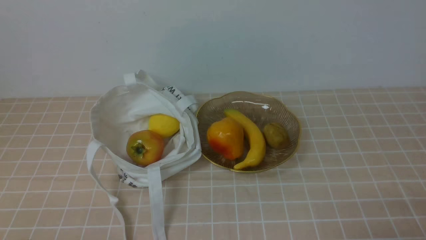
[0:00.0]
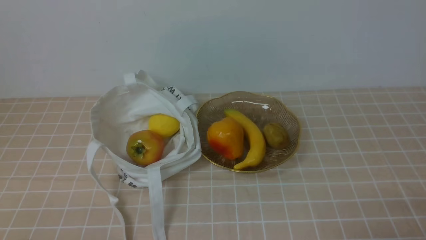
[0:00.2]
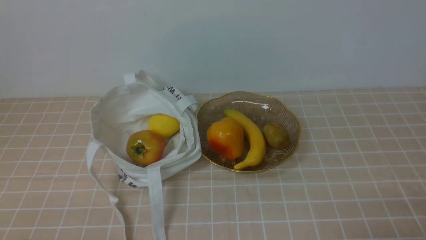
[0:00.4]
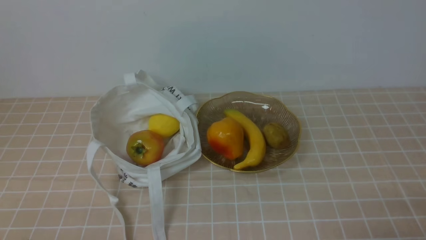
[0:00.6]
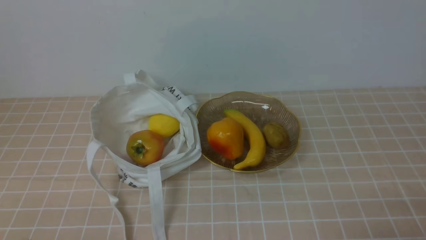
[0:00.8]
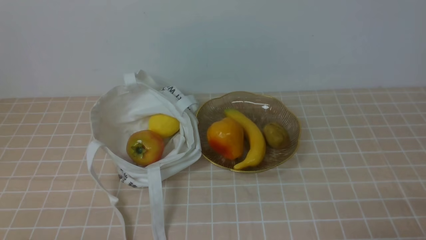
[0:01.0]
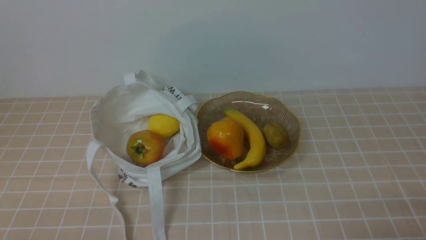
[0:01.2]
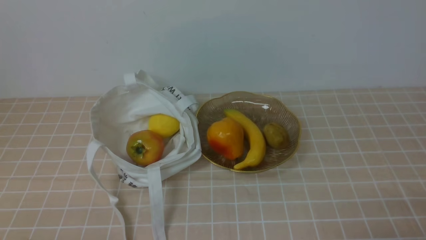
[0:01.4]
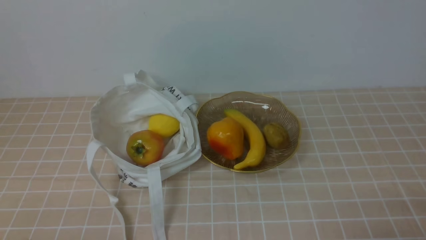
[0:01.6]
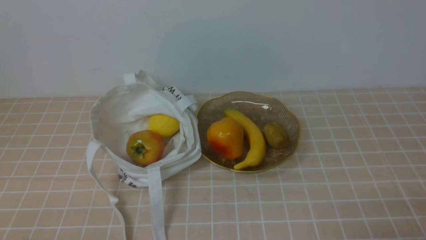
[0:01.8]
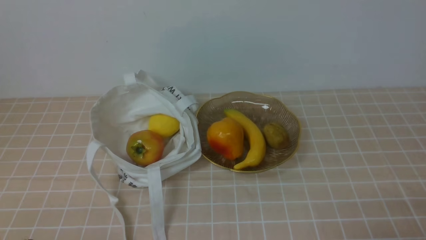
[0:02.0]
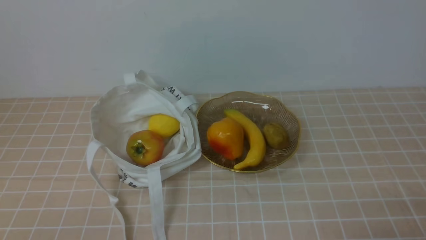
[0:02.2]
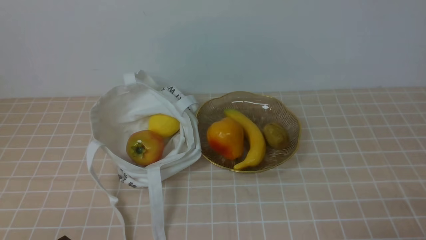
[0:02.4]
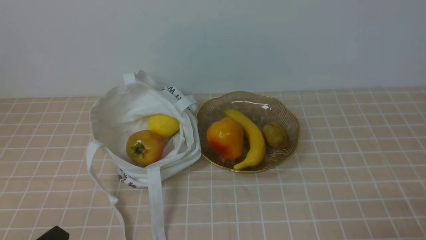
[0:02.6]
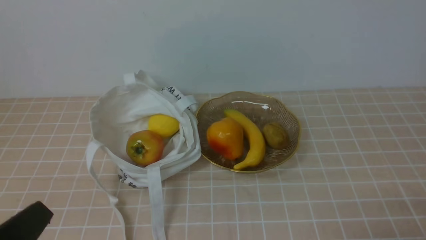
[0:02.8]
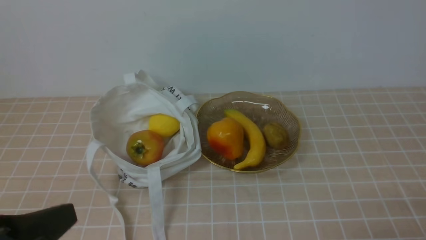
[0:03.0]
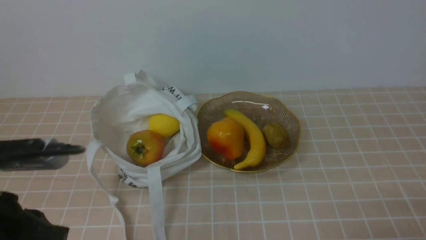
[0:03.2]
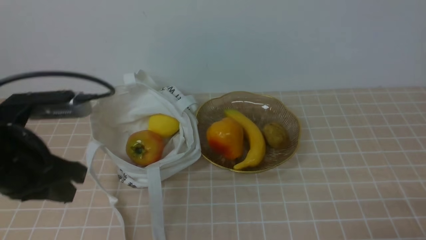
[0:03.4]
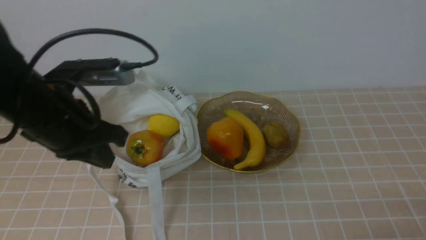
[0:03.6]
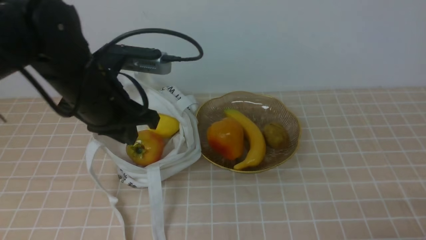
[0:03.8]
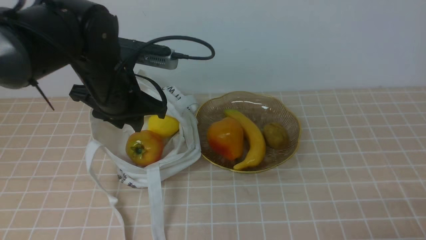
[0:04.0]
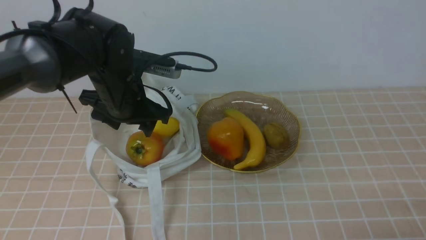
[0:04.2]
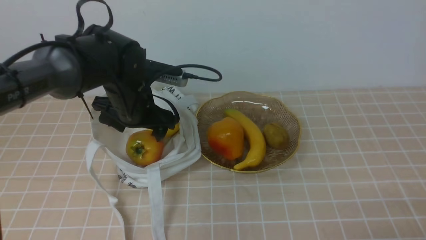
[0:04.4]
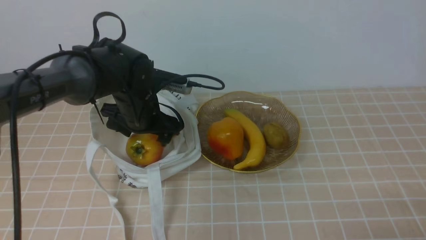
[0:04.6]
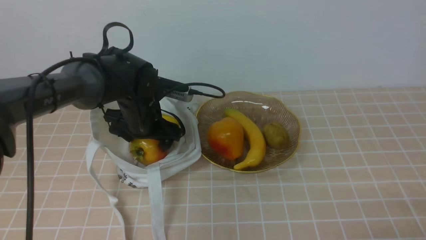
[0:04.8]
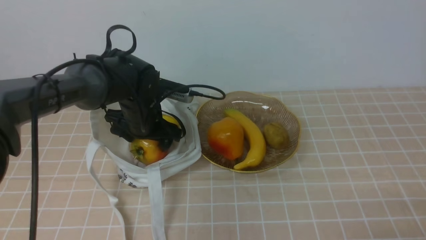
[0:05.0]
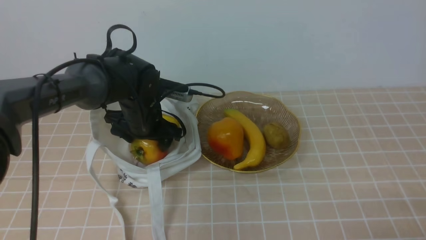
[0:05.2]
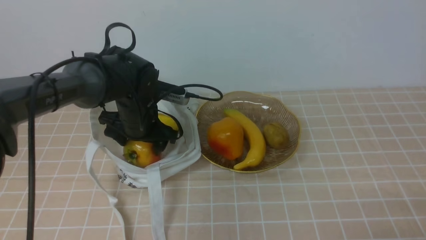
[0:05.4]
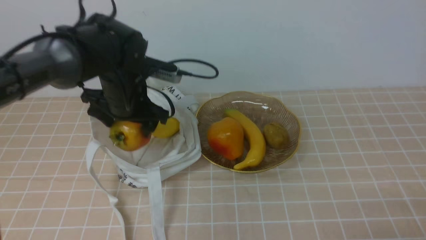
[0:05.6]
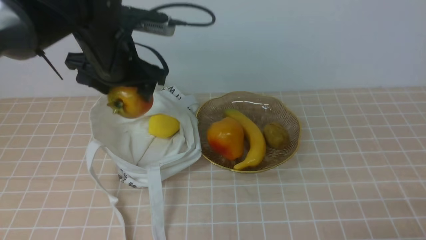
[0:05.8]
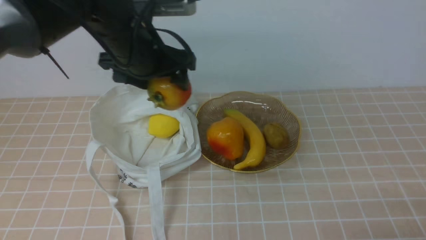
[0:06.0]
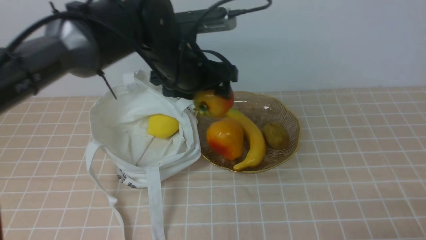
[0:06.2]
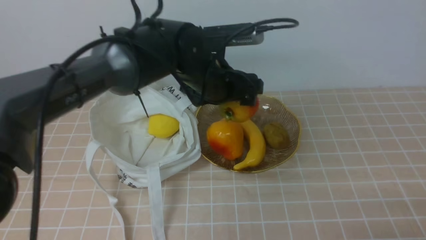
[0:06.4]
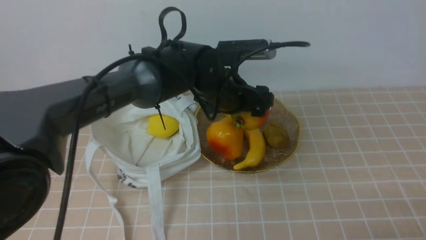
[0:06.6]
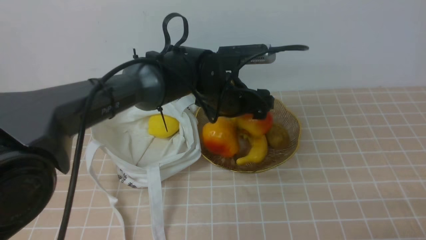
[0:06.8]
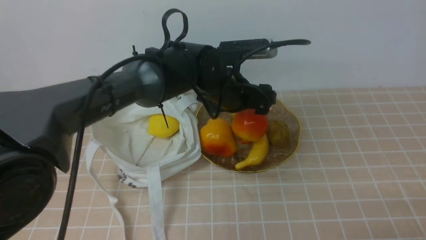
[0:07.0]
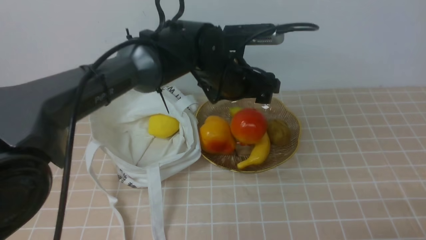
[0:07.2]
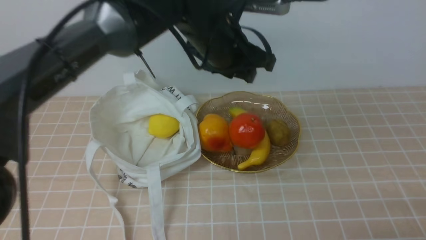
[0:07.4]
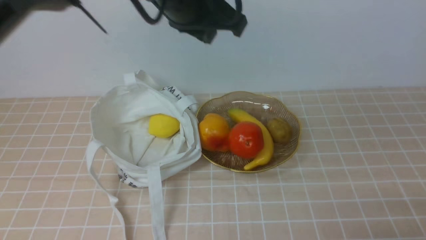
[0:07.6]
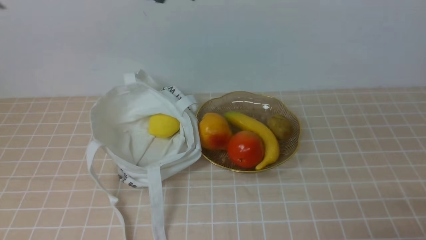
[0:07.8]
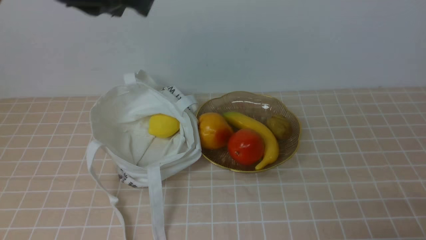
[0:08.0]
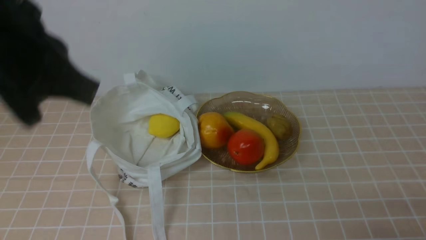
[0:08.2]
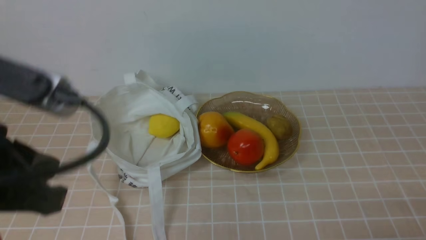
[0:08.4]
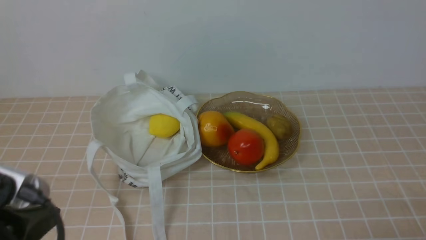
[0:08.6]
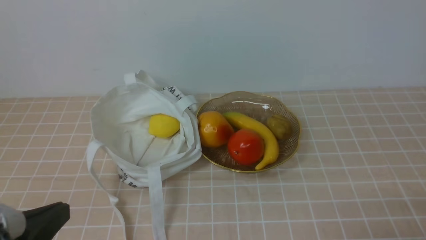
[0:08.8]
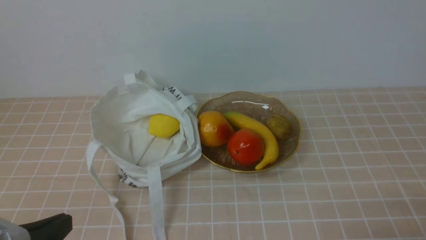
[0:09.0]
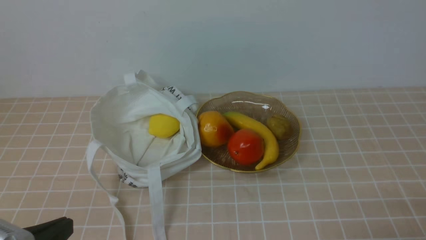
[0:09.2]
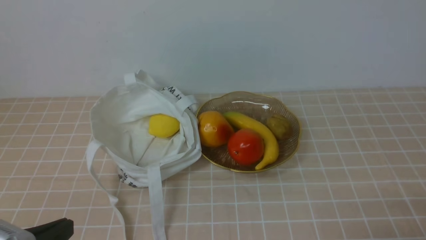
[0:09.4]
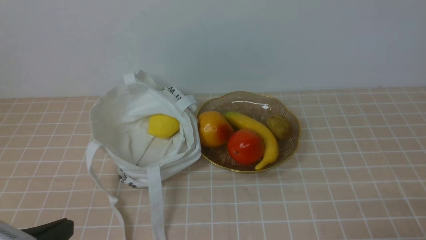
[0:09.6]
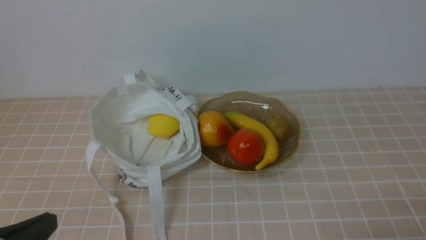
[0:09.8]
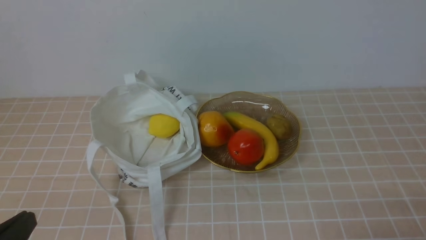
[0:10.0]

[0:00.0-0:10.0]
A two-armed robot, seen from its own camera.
Step, 0:00.0 to 0:05.8: use the left arm to grab a pomegranate from the bag.
Step, 0:06.0 to 0:07.0: use the left arm to put the pomegranate into the empty plate on the right.
0:01.4 to 0:02.8: The left gripper travels upward by approximately 5 cm.
0:02.8 to 0:04.2: The left gripper shifts about 30 cm forward, and opens its fingers.
0:04.2 to 0:05.8: The left gripper moves roughly 10 cm downward and comes back, and opens its fingers.
0:05.8 to 0:07.2: The left gripper is displaced to the right by about 15 cm.
0:07.2 to 0:08.6: The left gripper moves backward and to the left, about 35 cm, and closes.
0:08.6 to 0:10.0: The left gripper travels downward and backward by approximately 10 cm.

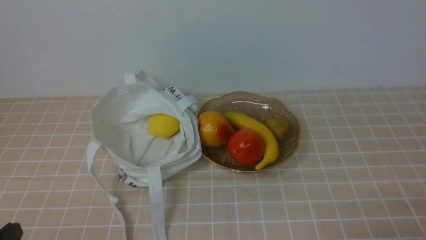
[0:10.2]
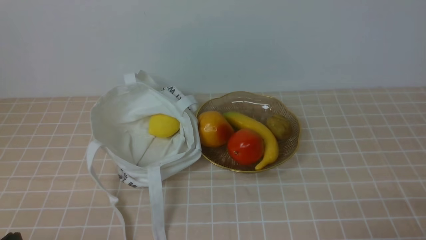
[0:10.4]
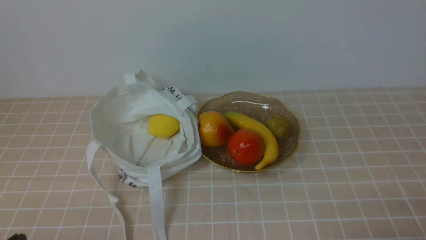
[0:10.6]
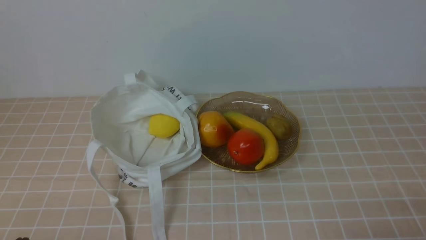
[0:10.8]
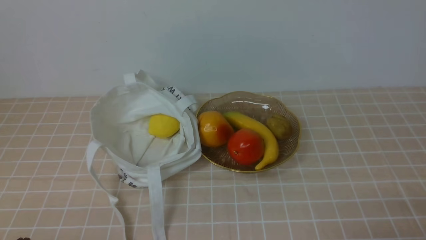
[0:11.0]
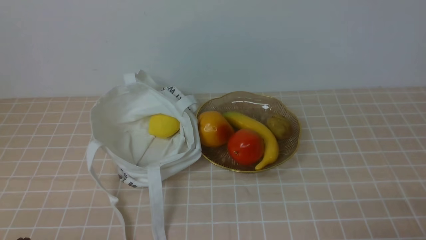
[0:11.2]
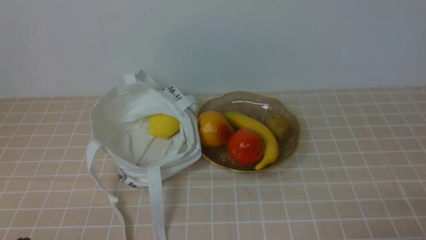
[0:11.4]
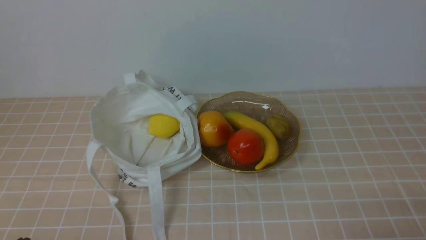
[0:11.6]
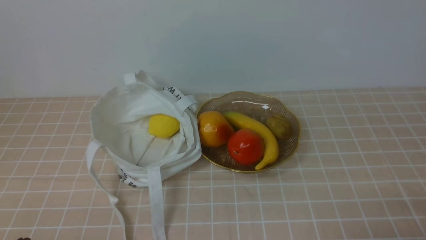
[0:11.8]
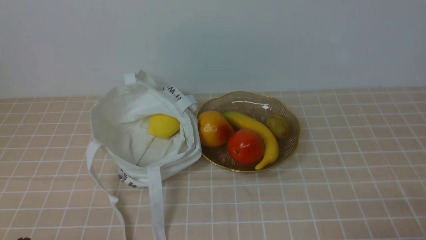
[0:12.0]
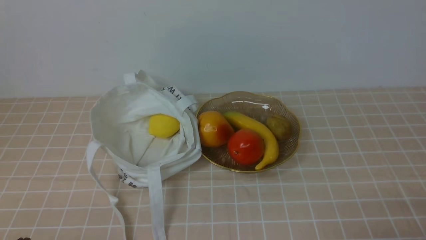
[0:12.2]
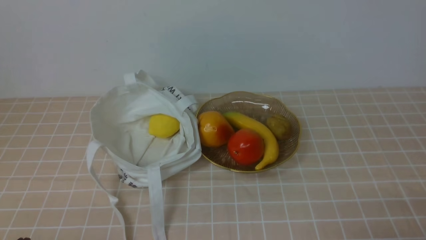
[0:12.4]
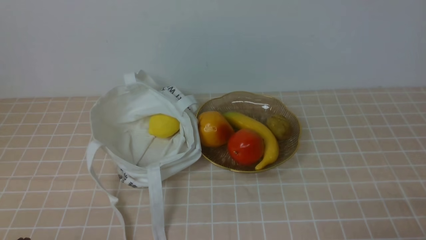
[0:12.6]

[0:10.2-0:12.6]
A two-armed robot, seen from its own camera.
0:11.4 to 0:12.6: Both grippers stay put.
